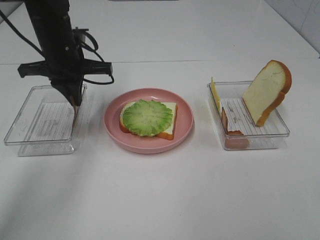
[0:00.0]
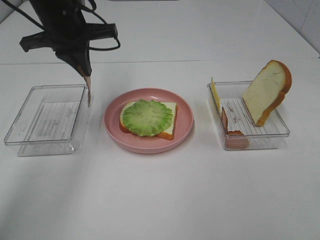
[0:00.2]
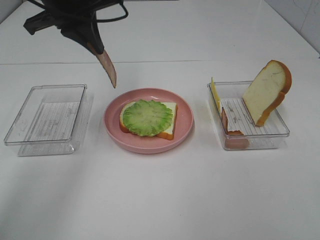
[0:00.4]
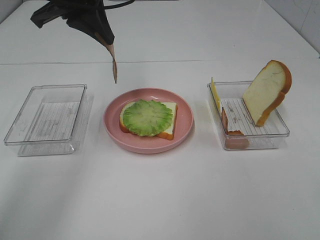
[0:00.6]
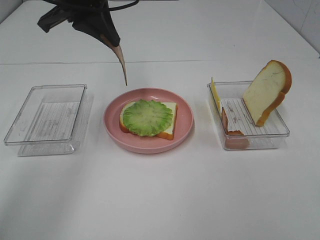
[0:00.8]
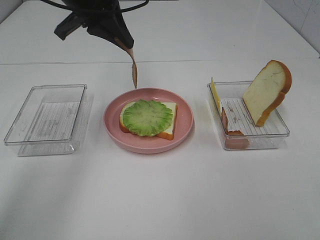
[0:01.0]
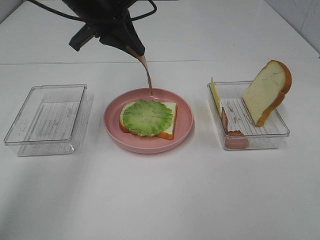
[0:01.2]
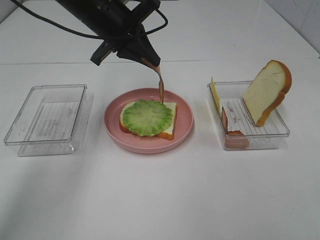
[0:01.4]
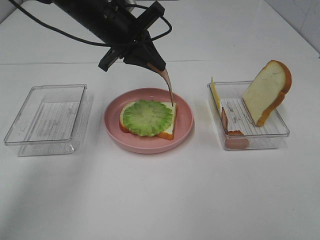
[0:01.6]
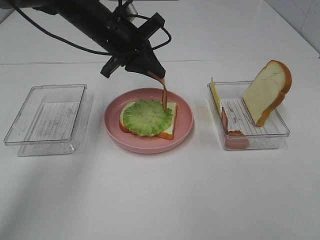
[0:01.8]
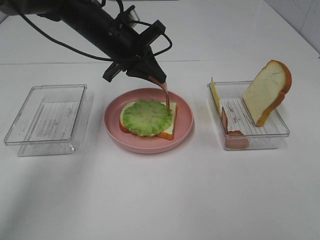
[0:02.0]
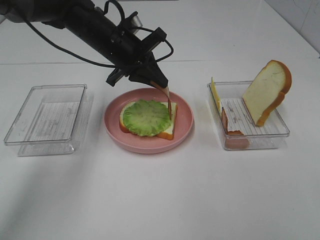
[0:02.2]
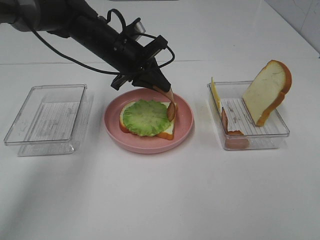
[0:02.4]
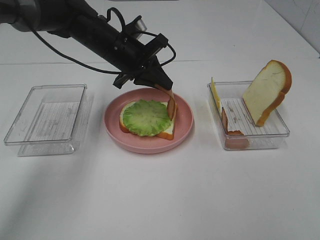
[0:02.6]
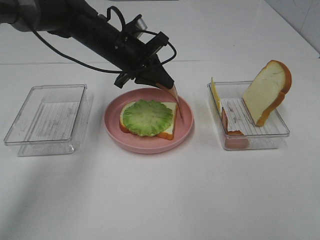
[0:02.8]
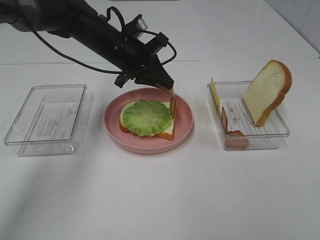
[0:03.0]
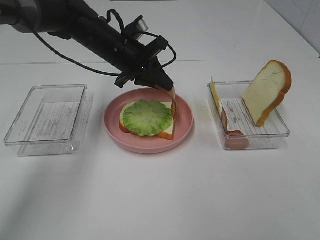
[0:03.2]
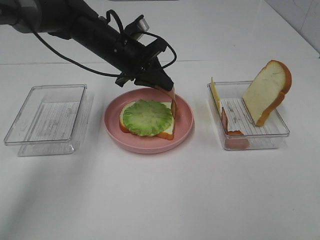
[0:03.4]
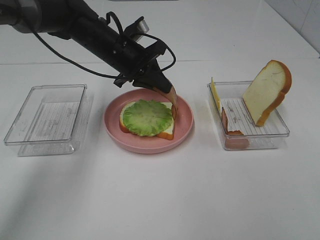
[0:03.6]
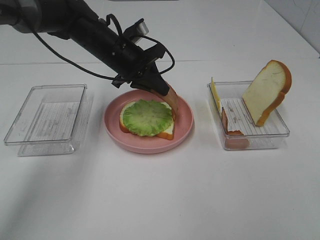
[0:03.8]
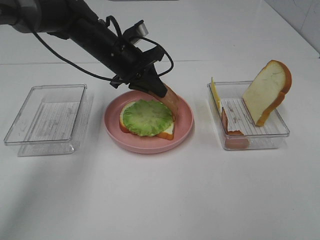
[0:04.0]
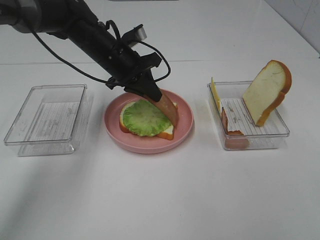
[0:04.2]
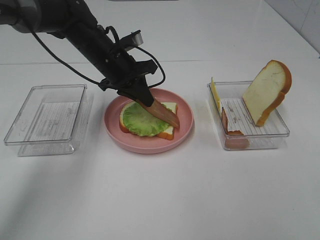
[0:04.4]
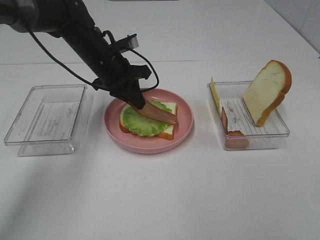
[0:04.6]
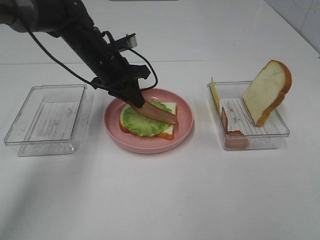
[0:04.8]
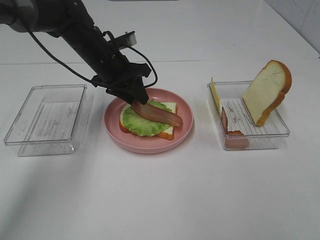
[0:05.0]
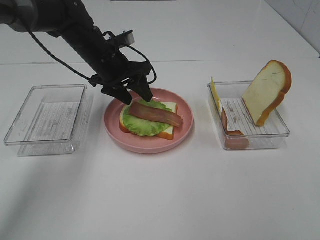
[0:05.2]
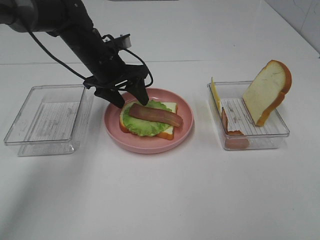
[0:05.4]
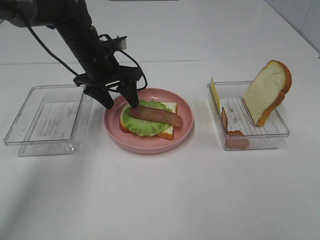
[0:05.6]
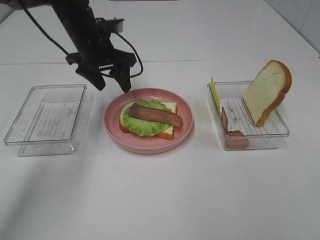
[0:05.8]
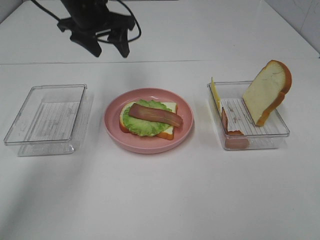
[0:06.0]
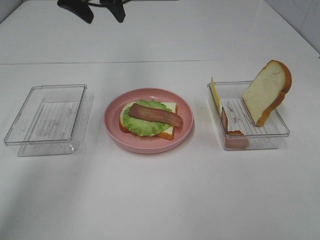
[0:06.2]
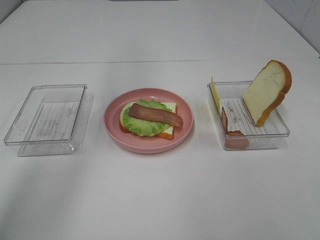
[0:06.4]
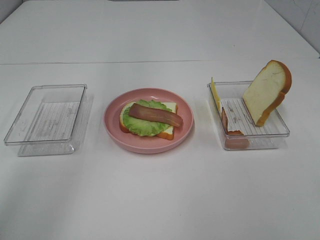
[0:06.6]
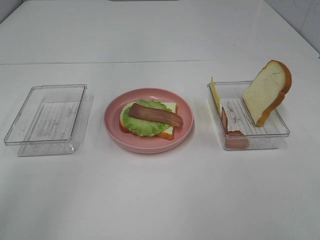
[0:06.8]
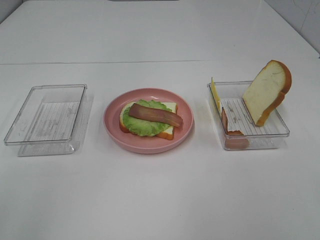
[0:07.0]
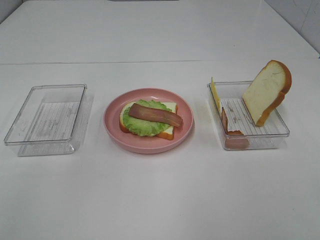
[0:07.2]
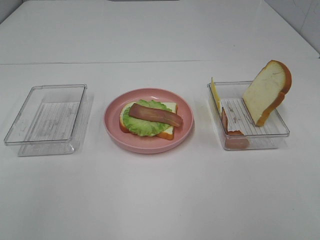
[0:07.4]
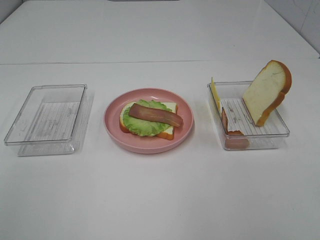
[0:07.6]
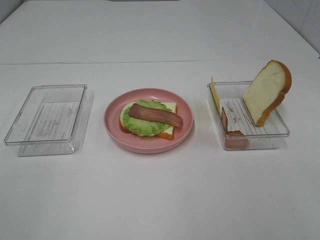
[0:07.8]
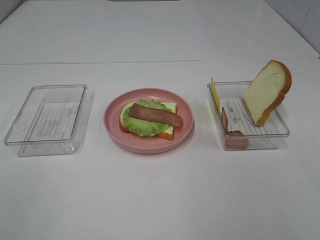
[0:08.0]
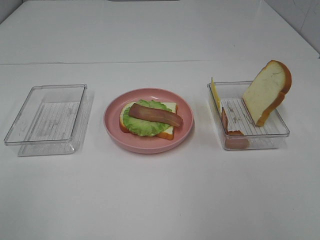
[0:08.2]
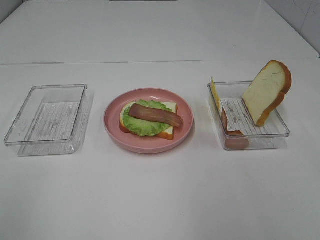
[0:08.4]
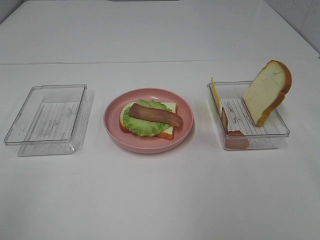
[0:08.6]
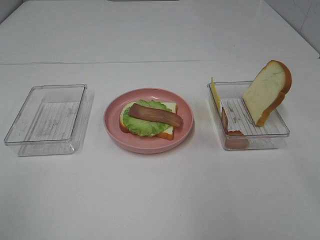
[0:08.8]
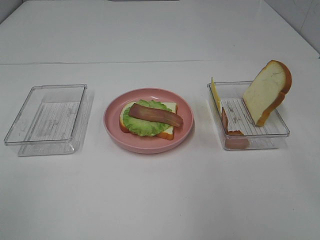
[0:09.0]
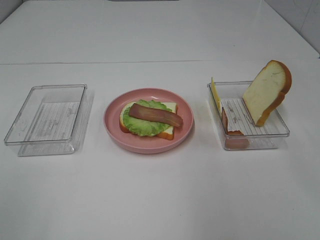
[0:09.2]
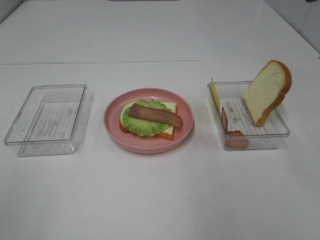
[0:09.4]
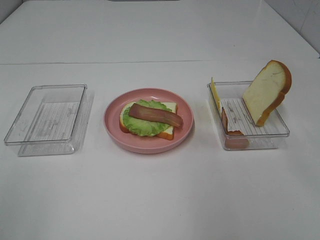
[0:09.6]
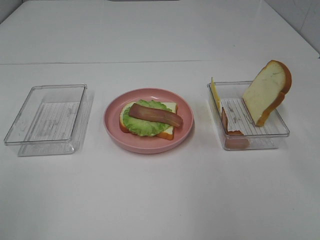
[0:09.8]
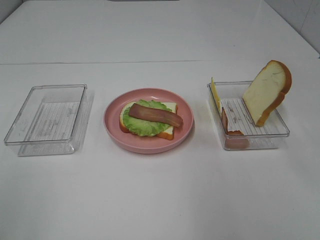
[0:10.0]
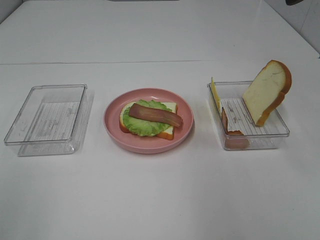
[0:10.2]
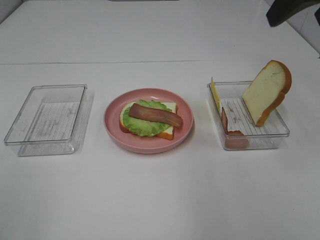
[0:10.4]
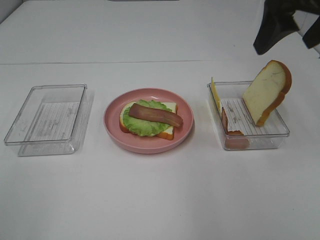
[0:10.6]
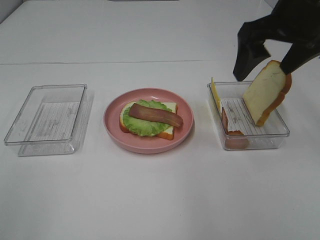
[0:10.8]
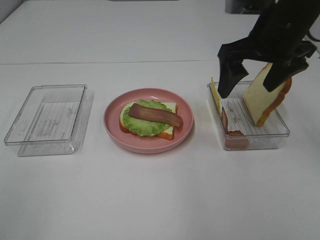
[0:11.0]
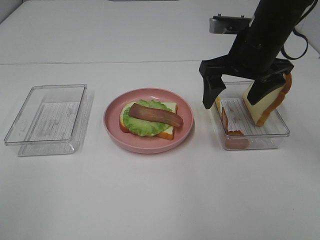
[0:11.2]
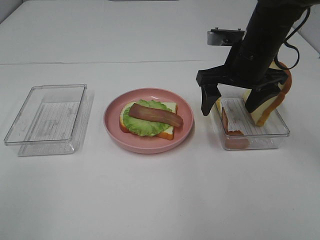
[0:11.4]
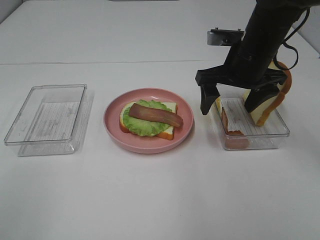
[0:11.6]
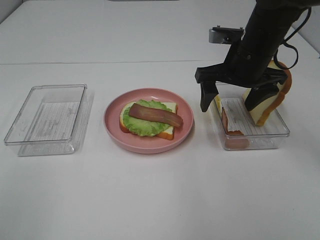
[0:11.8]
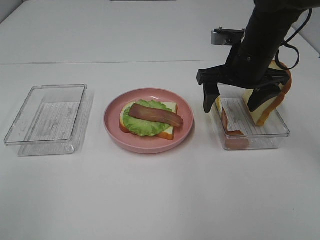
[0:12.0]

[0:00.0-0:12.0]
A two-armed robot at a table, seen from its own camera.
Task of the whole recording: Make sandwiches.
Step, 0:00.0 to 0:05.2: Left hand:place bacon on lettuce slice.
0:00.0 to 0:01.6: The left gripper goes about 5 cm to the right, and reaches approximately 10 cm upward, then returns.
0:01.6 to 0:03.0: The left gripper is displaced downward by roughly 5 cm.
0:03.0 to 0:04.4: The grippers move only a little.
0:04.4 to 0:06.0: The left gripper shifts some 10 cm upward, and opens its fingers.
0:06.0 to 0:07.6: The left gripper goes about 40 cm backward and upward.
0:09.0 to 0:10.4: The right gripper heads forward, covering about 10 cm.
0:10.4 to 0:12.0: The right gripper shifts some 20 cm downward, to the left and forward.

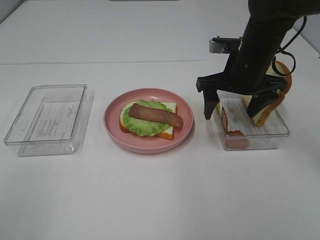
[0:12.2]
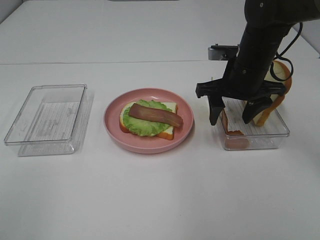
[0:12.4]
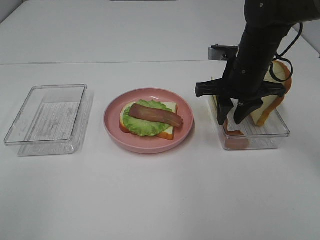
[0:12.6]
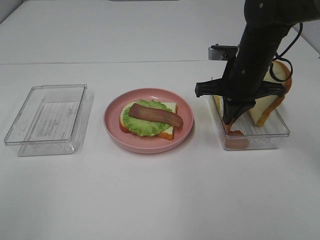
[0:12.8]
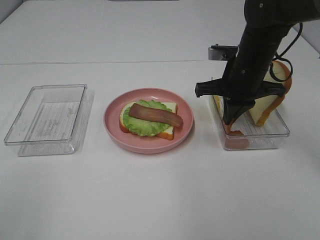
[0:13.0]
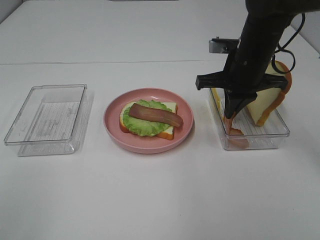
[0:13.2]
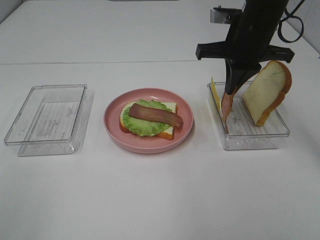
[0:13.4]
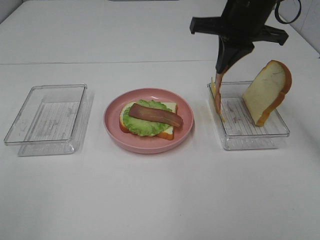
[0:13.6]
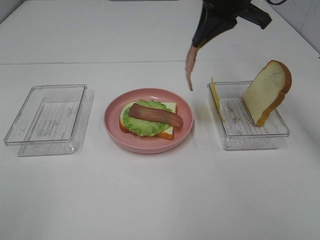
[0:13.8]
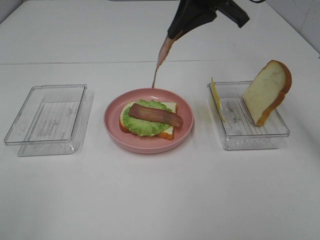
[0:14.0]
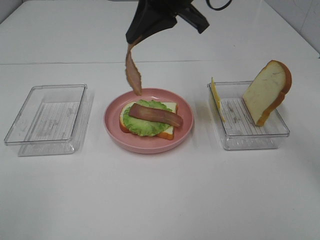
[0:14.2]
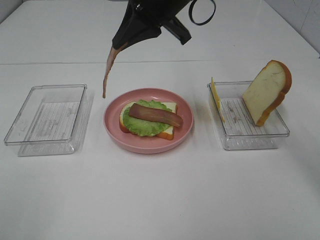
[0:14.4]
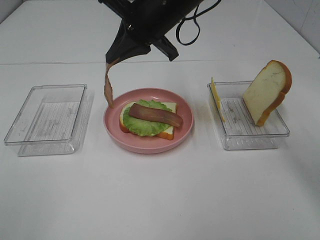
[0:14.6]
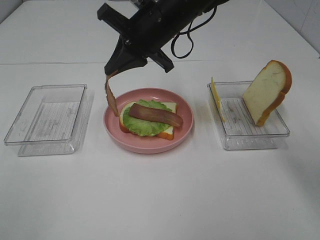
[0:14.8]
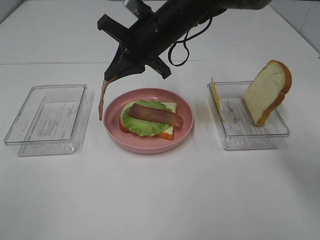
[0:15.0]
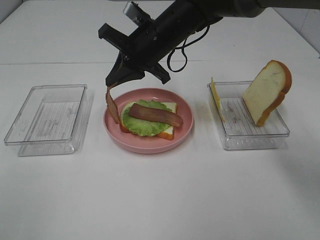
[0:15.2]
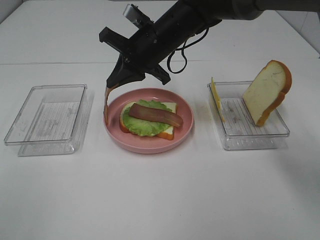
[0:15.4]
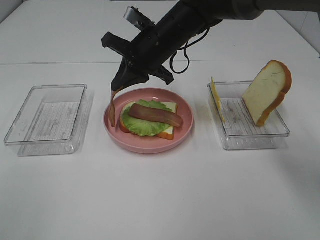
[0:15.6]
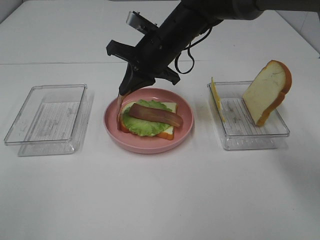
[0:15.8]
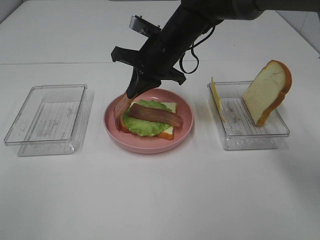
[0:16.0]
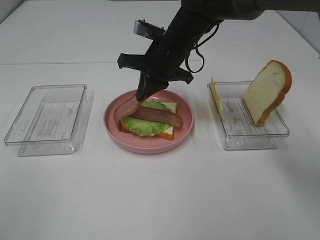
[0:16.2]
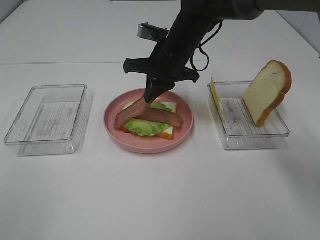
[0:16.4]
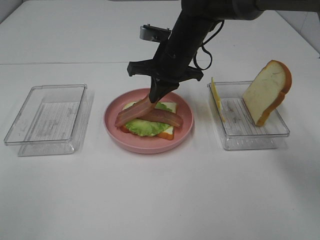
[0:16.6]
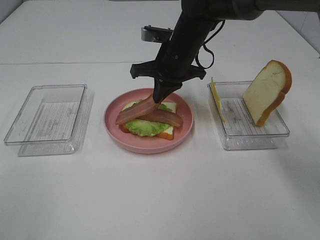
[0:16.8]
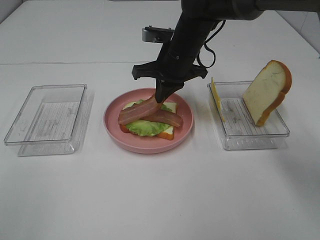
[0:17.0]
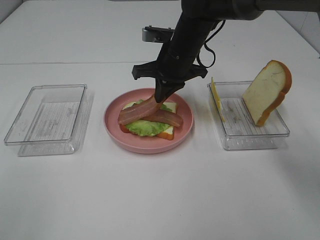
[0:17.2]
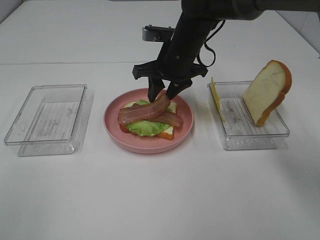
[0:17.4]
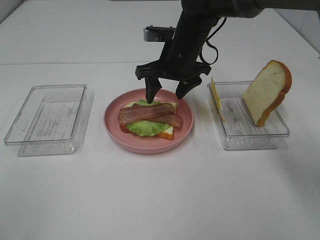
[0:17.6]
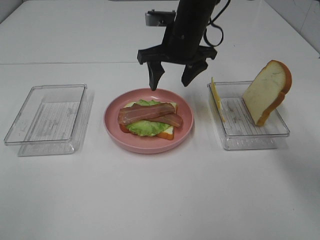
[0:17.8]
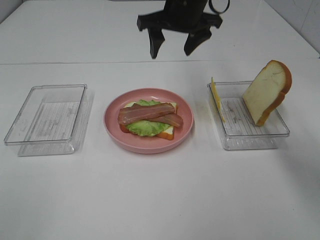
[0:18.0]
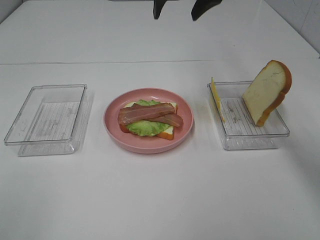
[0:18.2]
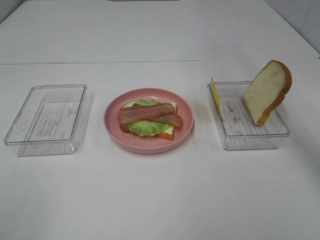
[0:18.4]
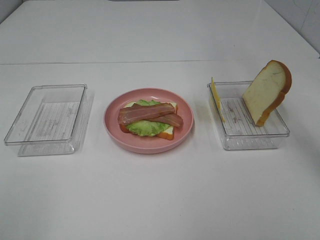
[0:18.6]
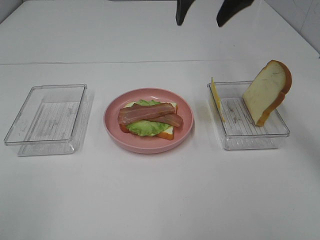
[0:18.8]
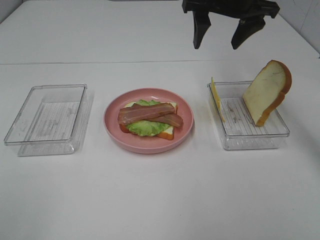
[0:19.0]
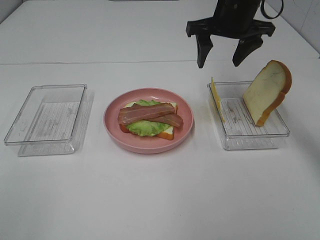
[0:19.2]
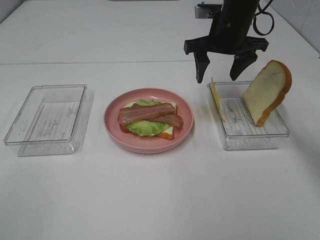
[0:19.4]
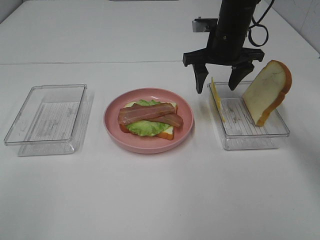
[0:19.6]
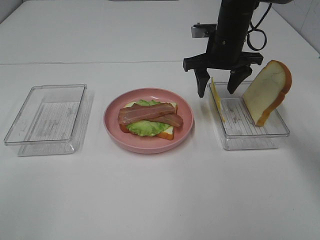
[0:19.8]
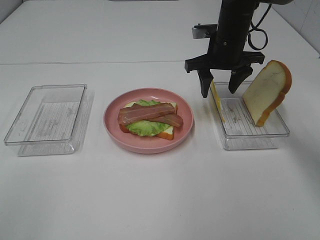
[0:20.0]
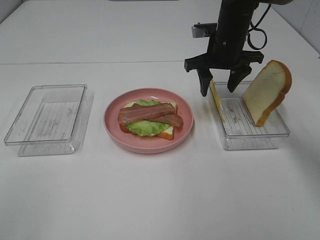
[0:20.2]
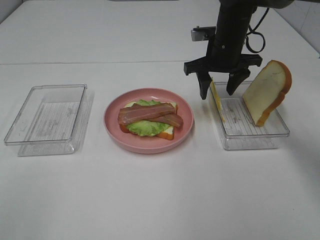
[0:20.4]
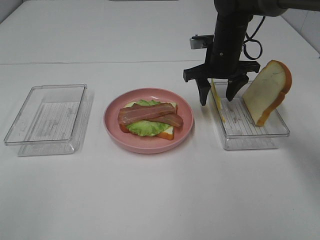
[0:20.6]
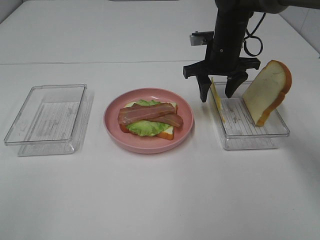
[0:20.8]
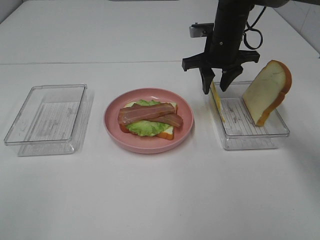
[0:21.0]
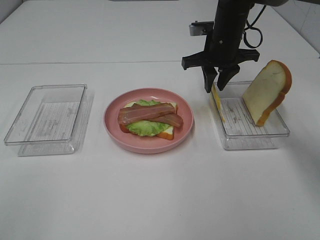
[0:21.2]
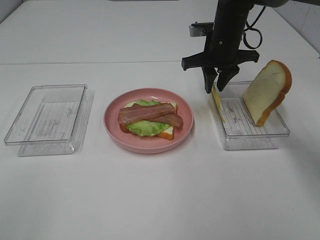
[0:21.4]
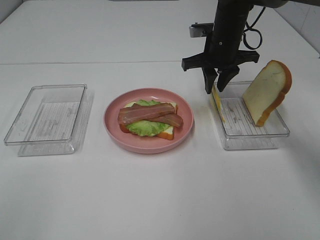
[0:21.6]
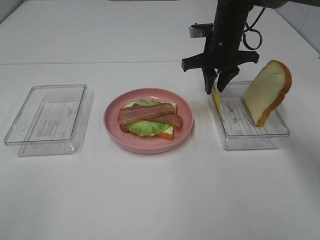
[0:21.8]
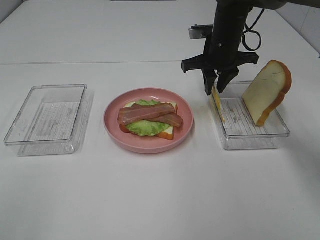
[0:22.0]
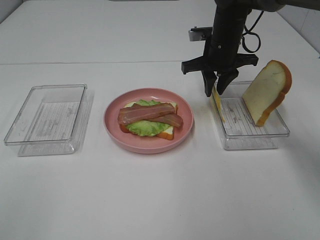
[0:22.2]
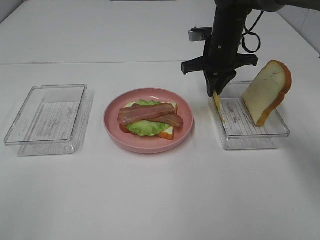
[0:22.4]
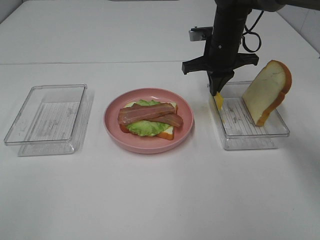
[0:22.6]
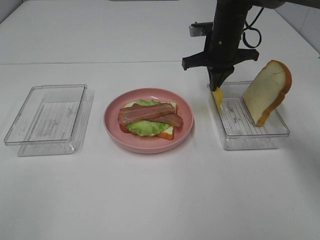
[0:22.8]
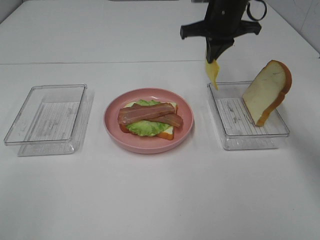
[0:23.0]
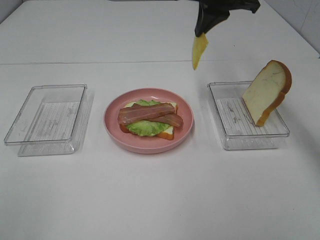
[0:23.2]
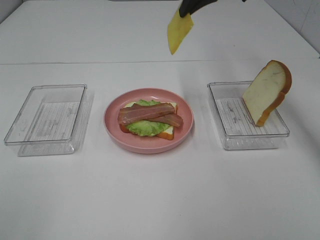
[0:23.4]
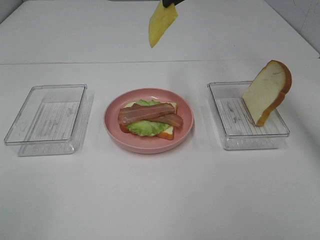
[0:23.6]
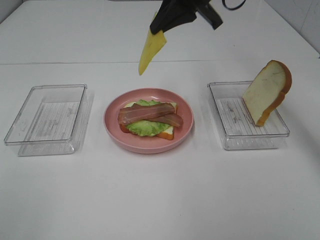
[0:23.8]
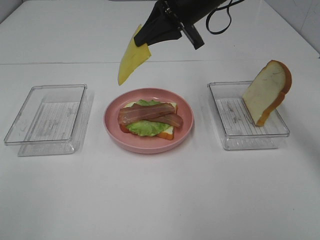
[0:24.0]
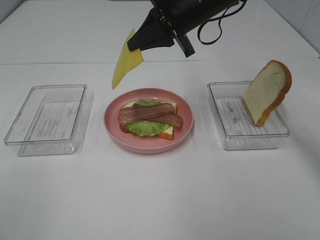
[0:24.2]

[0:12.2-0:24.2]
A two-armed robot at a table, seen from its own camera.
Task of the whole recording: Make sandwiches.
Step, 0:13.0 to 0:17.4: Right hand:place bacon on bacon.
Step, 0:17.6 to 0:22.4: Right hand:grab the cheese slice.
0:12.2 to 0:13.8: The right gripper moves upward, roughly 15 cm, and closes its fingers.
0:13.8 to 0:15.2: The right gripper heads downward and to the left, covering approximately 15 cm.
0:16.6 to 0:18.2: The right gripper heads upward, covering approximately 15 cm, and opens.
0:18.2 to 0:19.8: The right gripper heads downward and to the right, covering roughly 15 cm.
0:19.8 to 0:21.2: The right gripper closes up.
0:21.2 to 0:22.6: The right gripper closes.
0:22.6 to 0:24.2: The right gripper travels upward and to the left by about 10 cm.
